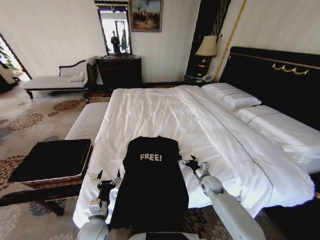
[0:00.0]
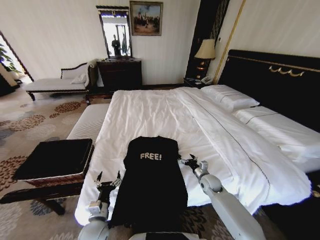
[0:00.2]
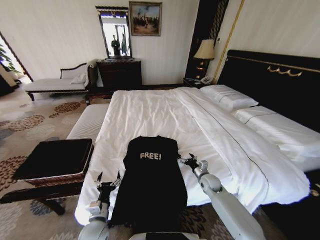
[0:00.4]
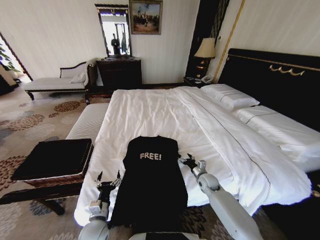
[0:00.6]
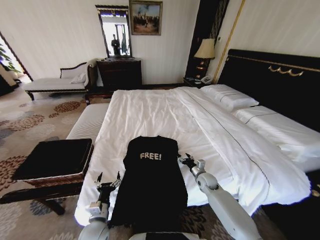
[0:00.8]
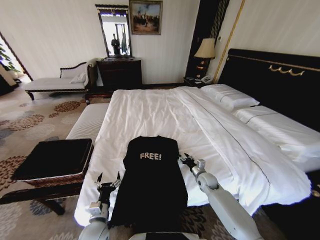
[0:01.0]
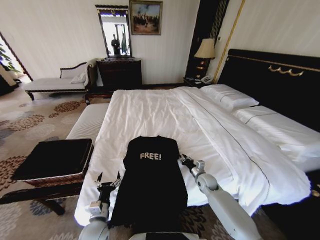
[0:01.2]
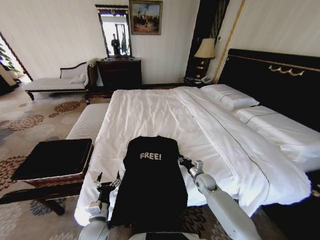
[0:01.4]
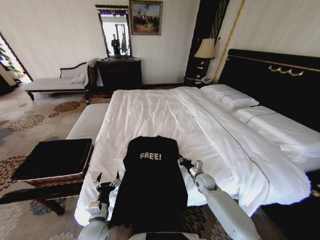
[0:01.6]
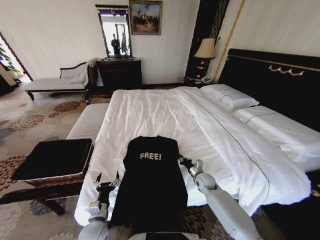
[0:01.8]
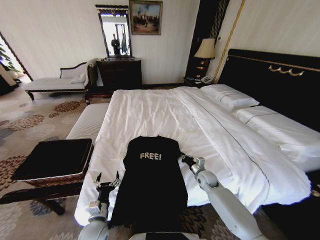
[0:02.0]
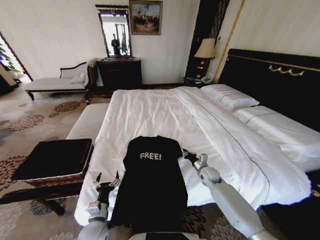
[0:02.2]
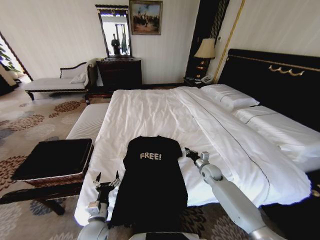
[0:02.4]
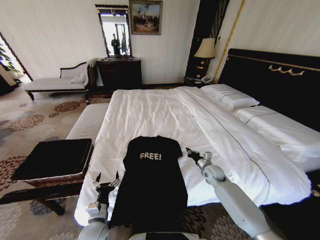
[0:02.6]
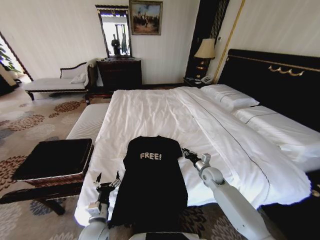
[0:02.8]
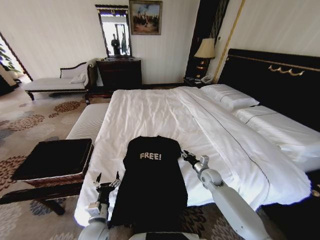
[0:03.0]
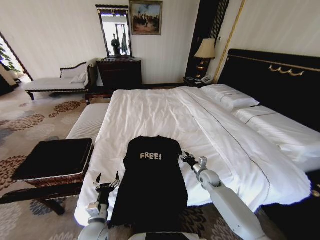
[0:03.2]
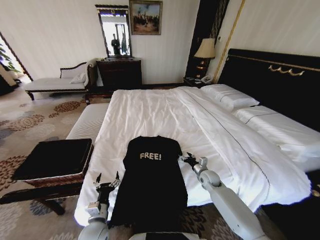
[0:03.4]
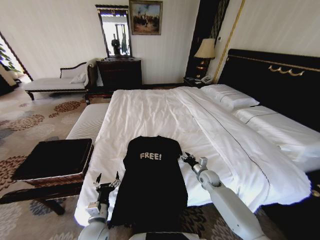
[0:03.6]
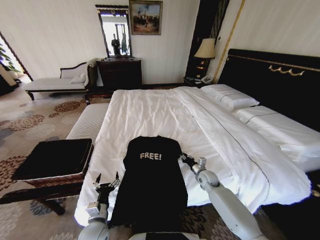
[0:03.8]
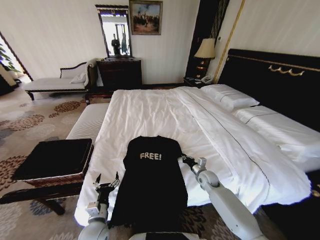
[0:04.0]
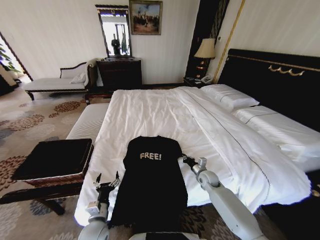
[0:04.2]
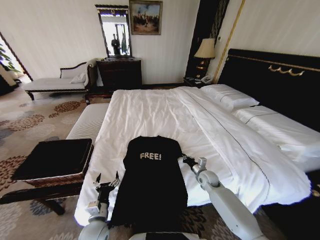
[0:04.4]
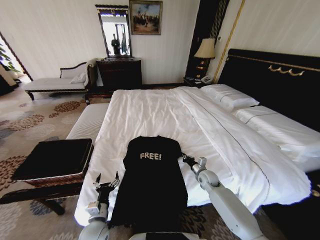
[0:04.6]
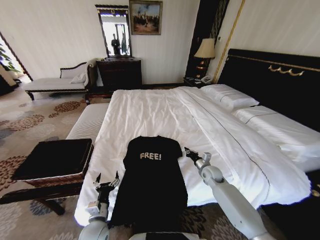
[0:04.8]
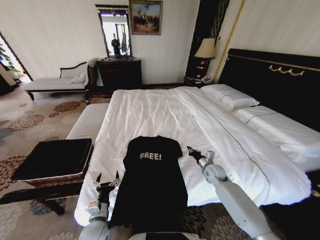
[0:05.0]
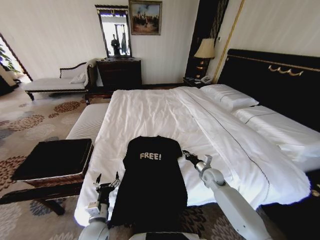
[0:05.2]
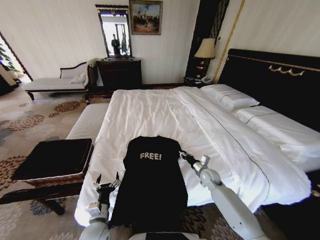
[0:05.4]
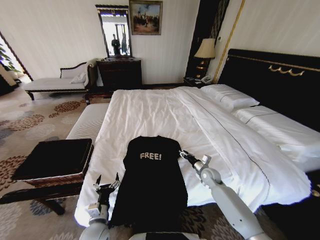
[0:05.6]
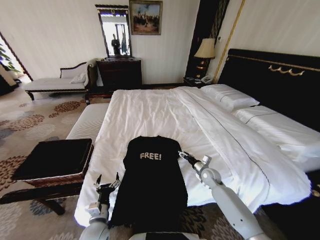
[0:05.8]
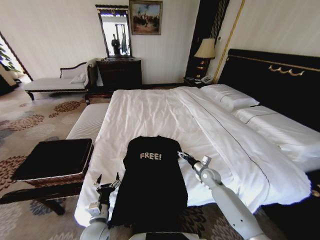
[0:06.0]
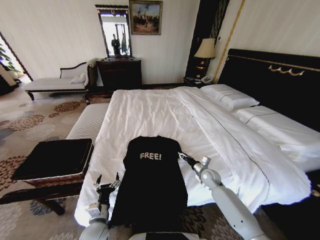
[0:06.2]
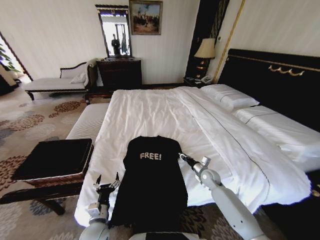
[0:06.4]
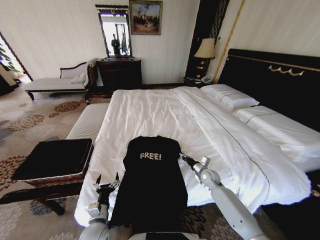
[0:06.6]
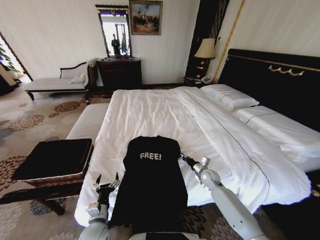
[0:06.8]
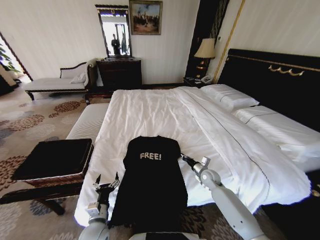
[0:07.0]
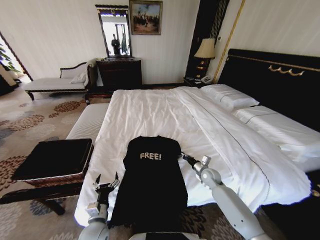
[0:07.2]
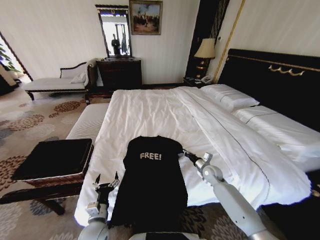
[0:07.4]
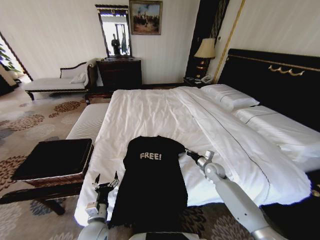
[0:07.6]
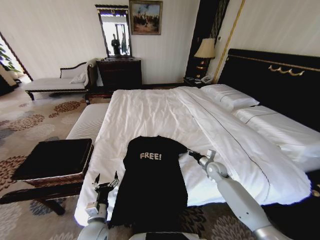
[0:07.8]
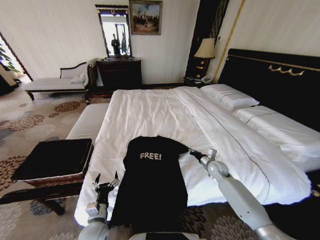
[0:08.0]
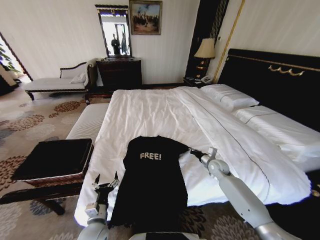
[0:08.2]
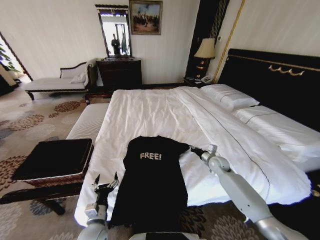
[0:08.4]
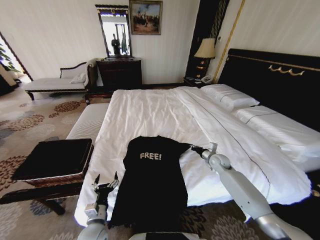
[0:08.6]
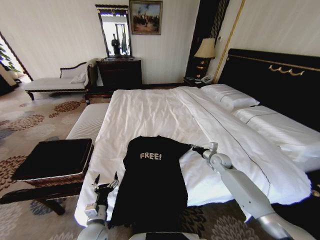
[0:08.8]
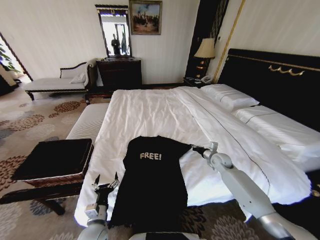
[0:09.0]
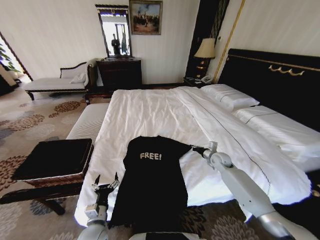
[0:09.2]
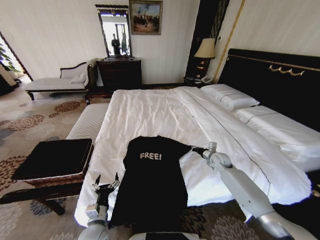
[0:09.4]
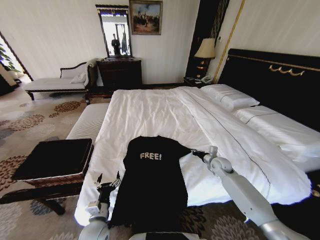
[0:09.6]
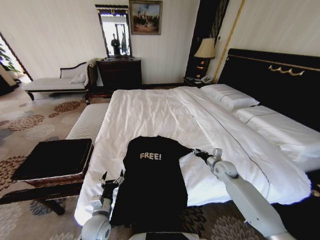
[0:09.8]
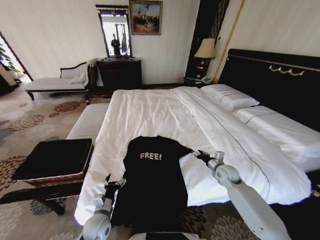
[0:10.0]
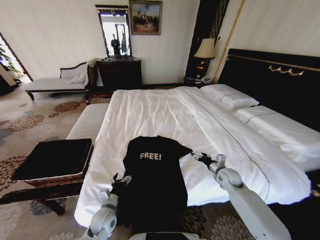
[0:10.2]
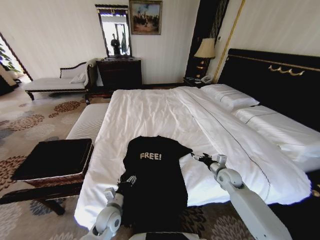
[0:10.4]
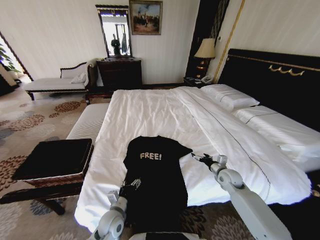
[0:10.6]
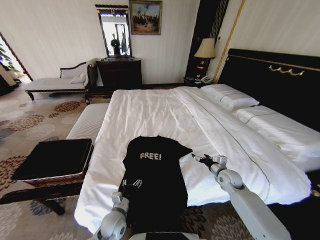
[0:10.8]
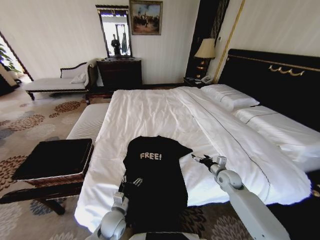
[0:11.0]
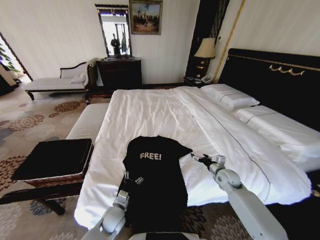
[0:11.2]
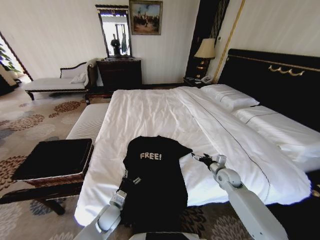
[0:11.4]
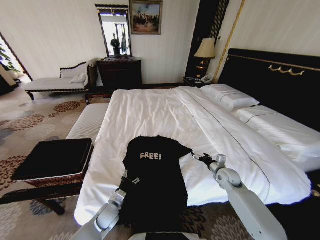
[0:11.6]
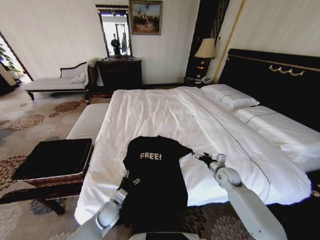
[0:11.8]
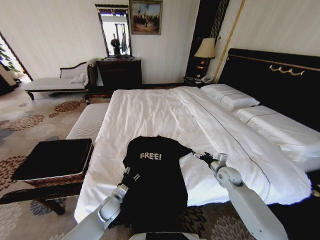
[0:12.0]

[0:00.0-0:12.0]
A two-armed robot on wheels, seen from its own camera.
Task of the whole recording: Fold the clothes on the bed and place them into the basket.
0:00.0 to 0:01.6: The right gripper closes up.
0:01.6 to 0:03.0: The right gripper opens.
0:03.0 to 0:04.4: The right gripper closes.
0:04.4 to 0:06.0: The right gripper opens.
0:06.0 to 0:07.6: The right gripper closes up.
0:07.6 to 0:09.0: The right gripper shifts by roughly 5 cm.
0:09.0 to 0:10.4: The right gripper goes roughly 10 cm backward, and opens; the left gripper is displaced forward by about 5 cm.
0:10.4 to 0:12.0: The left gripper shifts approximately 5 cm forward.

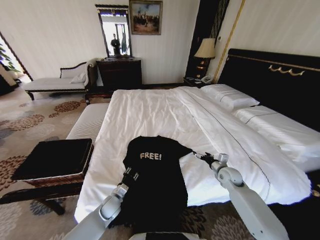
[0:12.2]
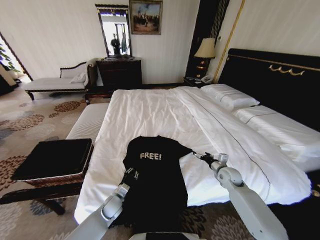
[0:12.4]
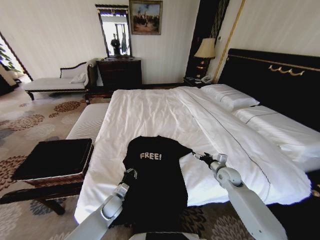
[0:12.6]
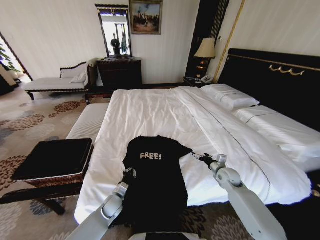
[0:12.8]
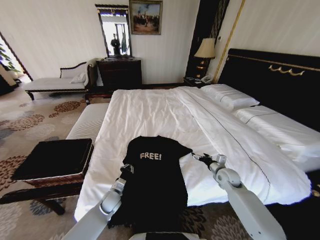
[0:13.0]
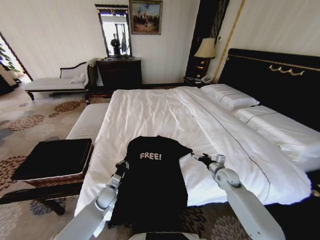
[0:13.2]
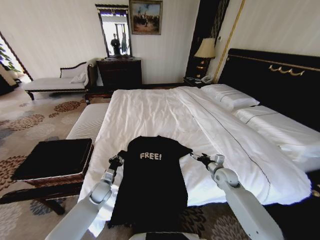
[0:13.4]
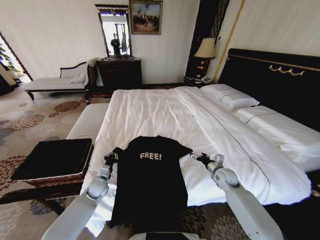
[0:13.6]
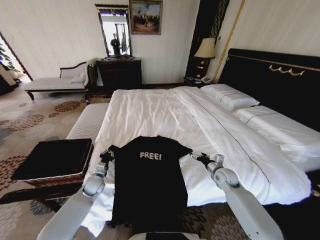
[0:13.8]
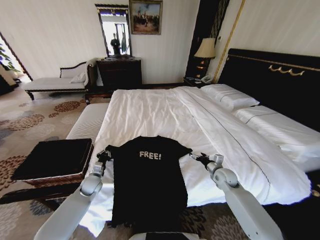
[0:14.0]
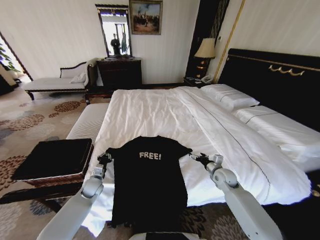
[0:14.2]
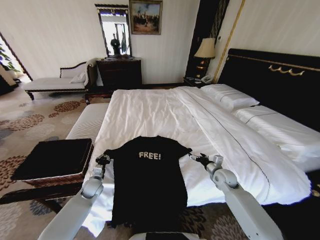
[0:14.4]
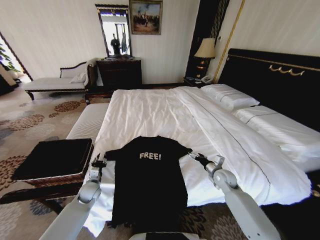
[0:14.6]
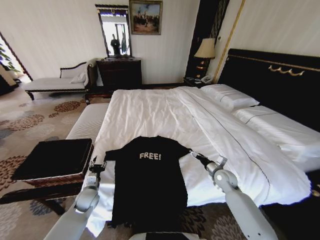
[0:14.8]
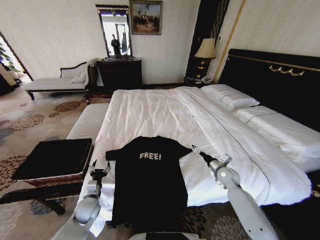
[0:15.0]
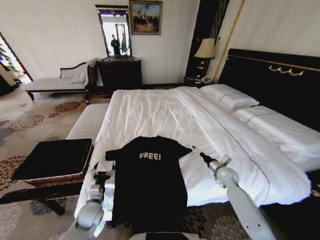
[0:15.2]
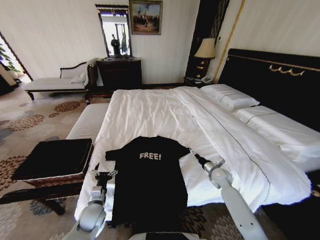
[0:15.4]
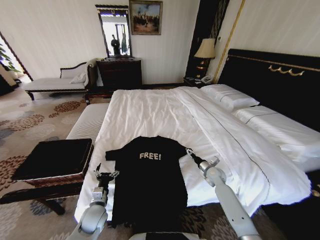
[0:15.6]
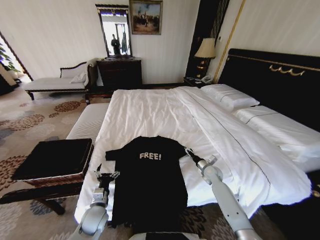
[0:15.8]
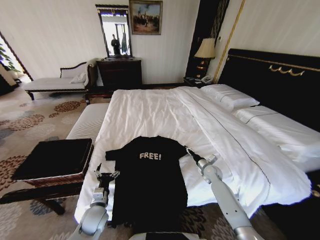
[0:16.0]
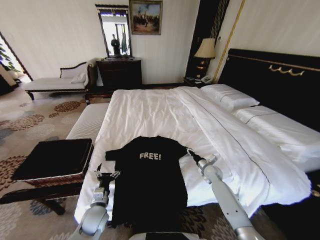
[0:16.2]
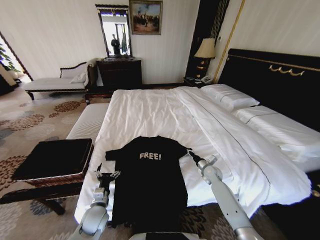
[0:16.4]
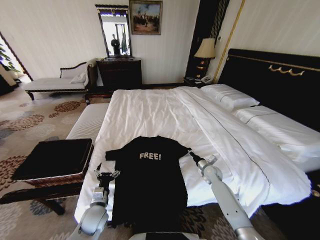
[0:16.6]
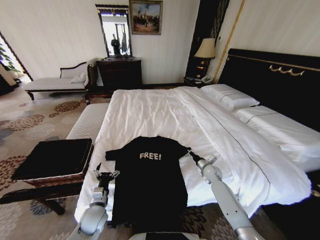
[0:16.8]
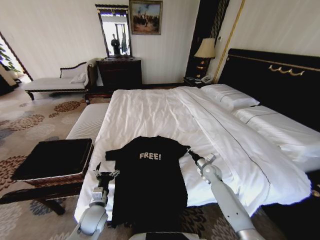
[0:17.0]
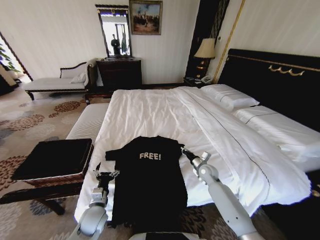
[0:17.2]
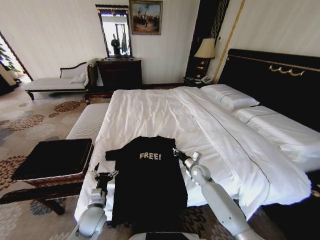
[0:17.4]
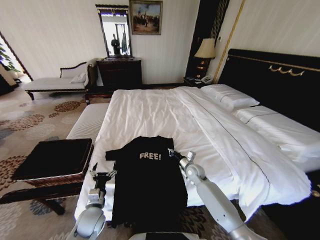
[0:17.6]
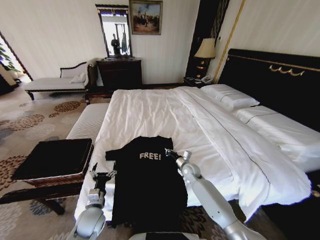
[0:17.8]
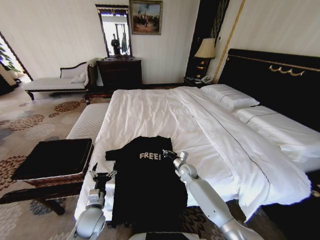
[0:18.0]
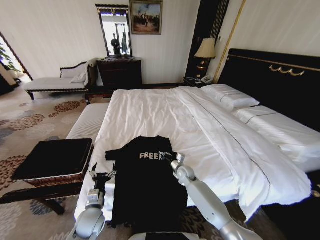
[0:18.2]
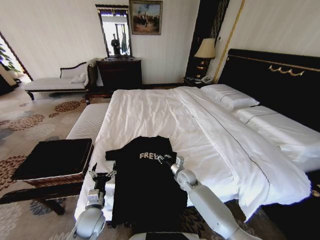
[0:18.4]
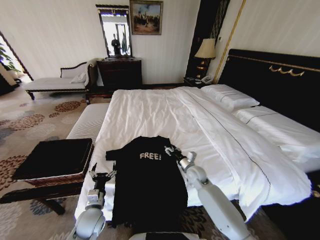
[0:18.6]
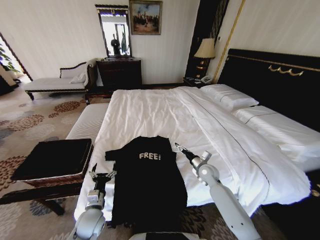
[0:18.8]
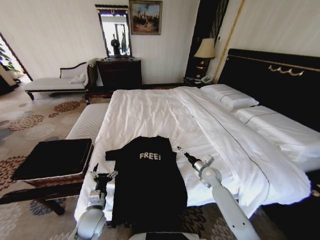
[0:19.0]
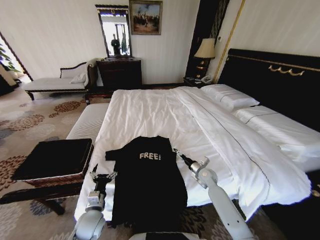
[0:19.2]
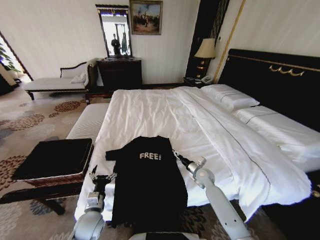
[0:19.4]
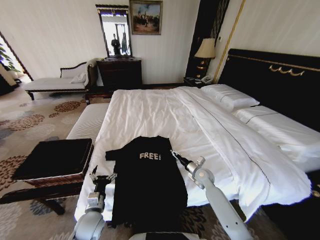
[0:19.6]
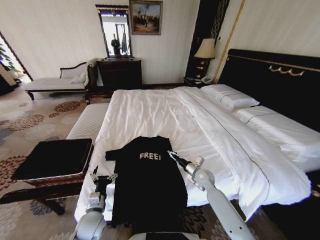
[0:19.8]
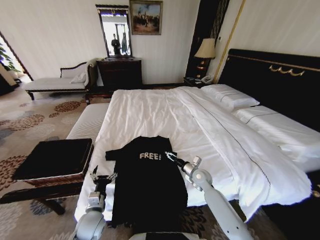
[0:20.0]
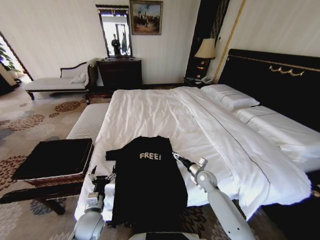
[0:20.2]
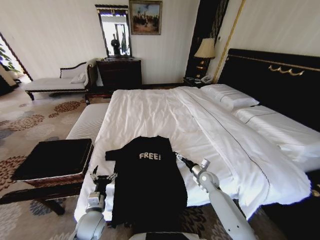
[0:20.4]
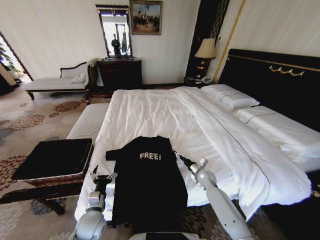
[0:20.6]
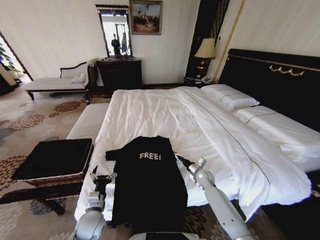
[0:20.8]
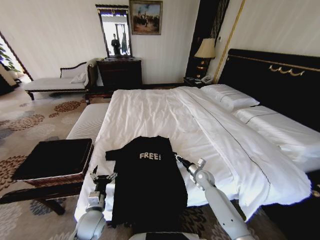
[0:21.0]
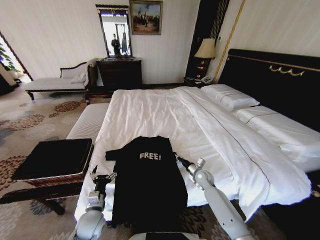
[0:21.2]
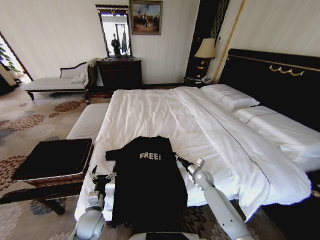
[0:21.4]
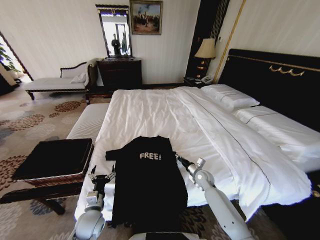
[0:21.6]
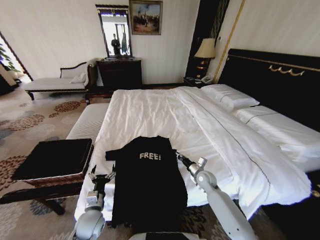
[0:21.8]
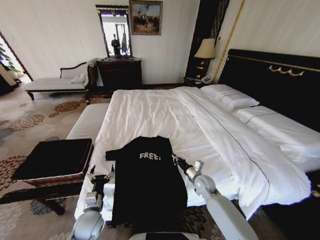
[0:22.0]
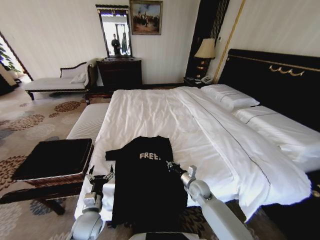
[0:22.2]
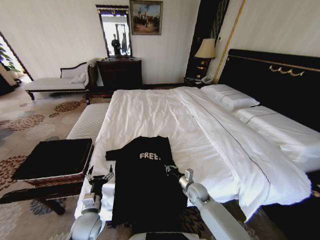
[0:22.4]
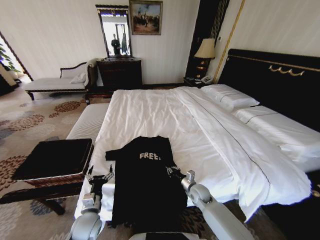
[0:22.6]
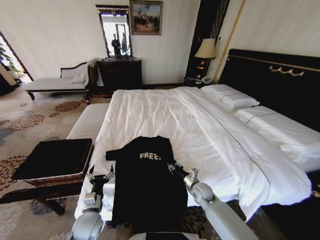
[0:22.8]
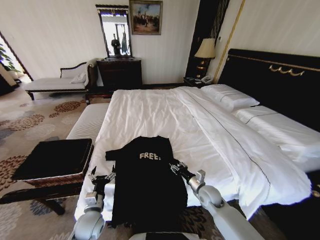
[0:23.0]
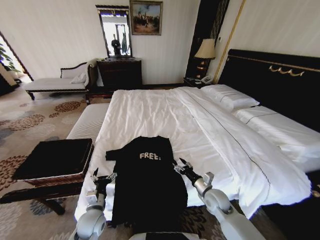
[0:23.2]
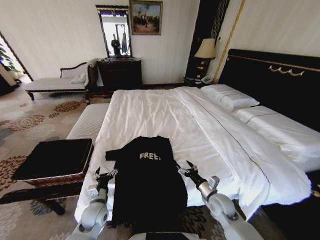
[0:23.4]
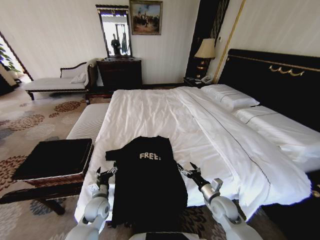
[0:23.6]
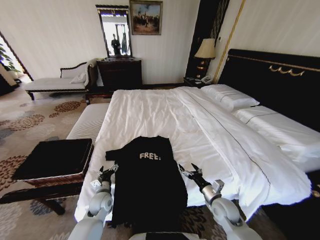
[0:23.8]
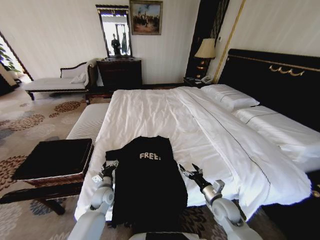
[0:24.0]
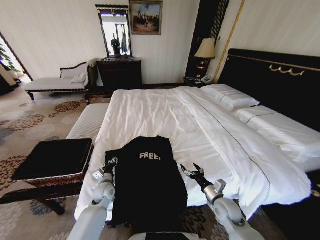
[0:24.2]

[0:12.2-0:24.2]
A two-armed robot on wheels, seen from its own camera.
Task of the whole recording: Fold the clothes on the bed and place them into the basket.
0:12.2 to 0:13.8: The left gripper travels to the left, forward and upward by roughly 15 cm, and closes.
0:13.8 to 0:15.2: The left gripper goes about 10 cm backward, and opens.
0:15.2 to 0:16.6: The right gripper moves downward, approximately 5 cm, and closes.
0:16.6 to 0:18.2: The right gripper shifts roughly 15 cm to the left.
0:18.2 to 0:19.8: The right gripper moves to the right, approximately 10 cm, and opens its fingers.
0:19.8 to 0:21.2: The right gripper changes place by some 5 cm, and closes its fingers.
0:21.2 to 0:22.6: The right gripper travels backward and to the left by about 10 cm.
0:22.6 to 0:24.2: The right gripper heads backward, to the right and upward, covering roughly 10 cm, and opens its fingers, while the left gripper heads forward, covering approximately 15 cm, and closes.
